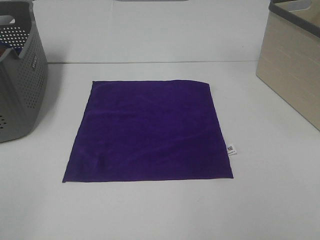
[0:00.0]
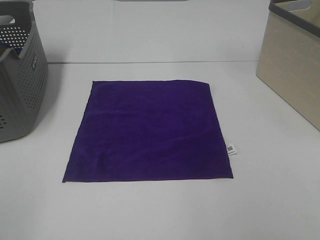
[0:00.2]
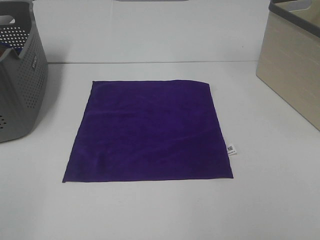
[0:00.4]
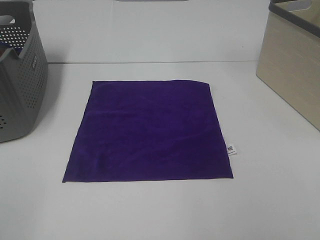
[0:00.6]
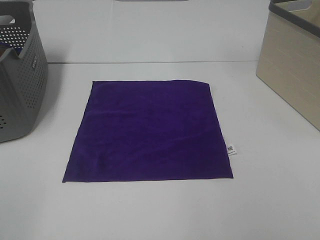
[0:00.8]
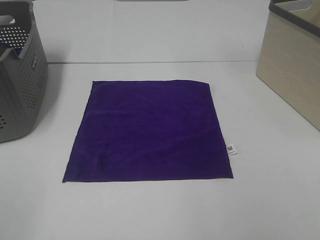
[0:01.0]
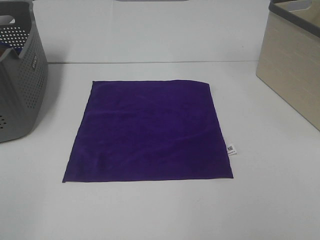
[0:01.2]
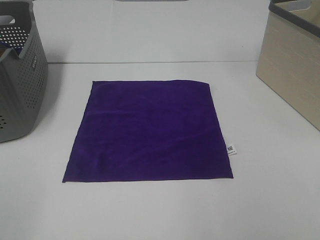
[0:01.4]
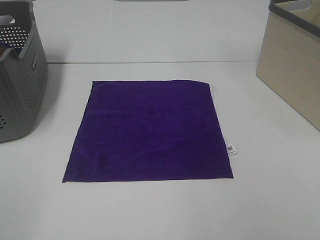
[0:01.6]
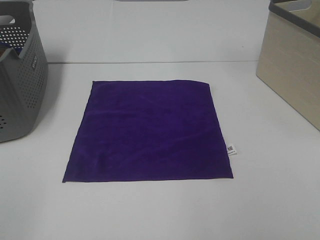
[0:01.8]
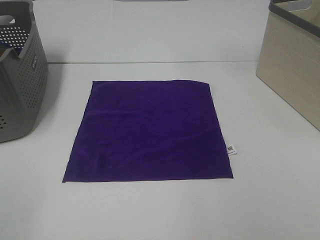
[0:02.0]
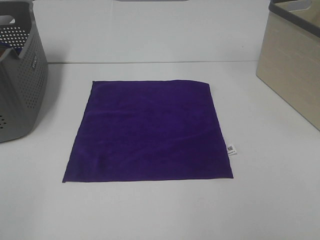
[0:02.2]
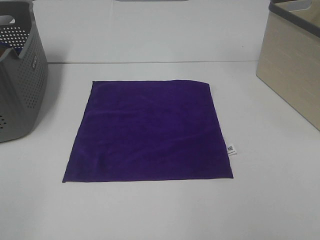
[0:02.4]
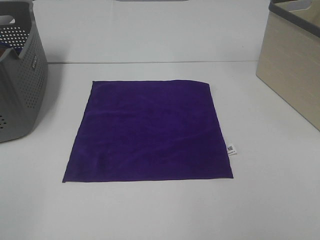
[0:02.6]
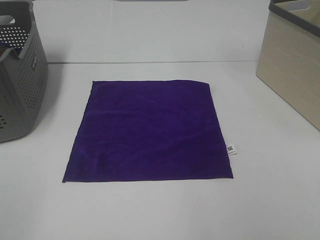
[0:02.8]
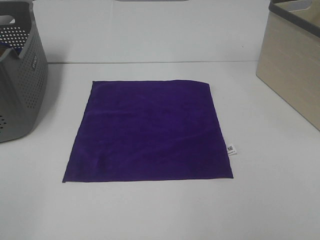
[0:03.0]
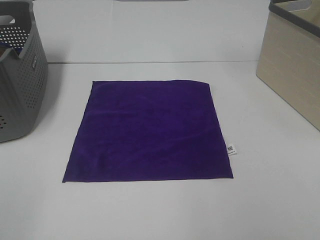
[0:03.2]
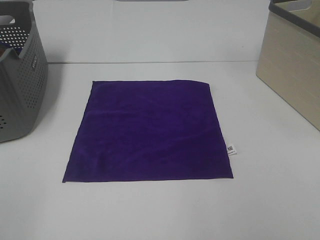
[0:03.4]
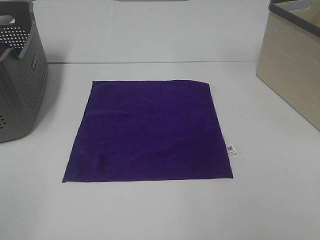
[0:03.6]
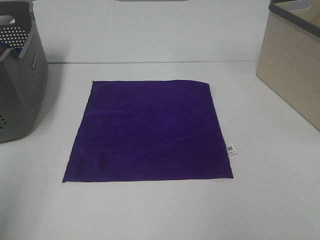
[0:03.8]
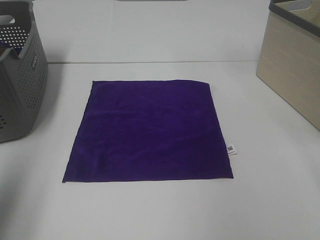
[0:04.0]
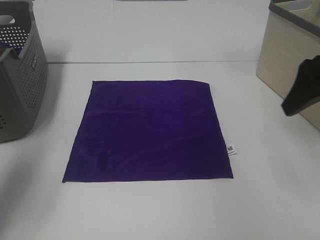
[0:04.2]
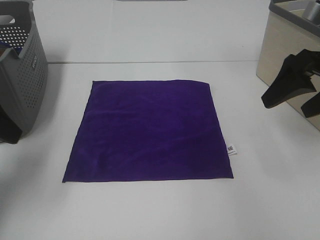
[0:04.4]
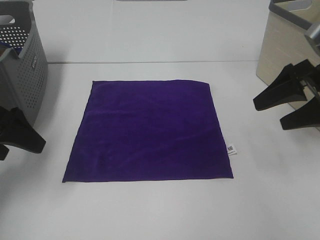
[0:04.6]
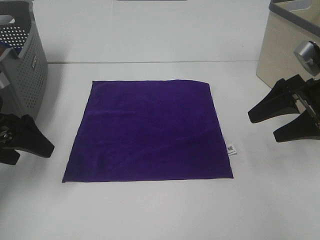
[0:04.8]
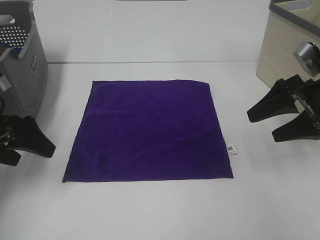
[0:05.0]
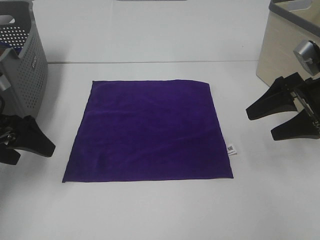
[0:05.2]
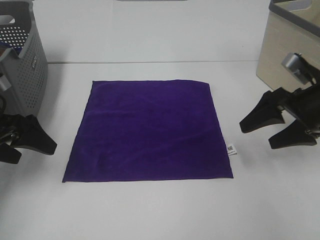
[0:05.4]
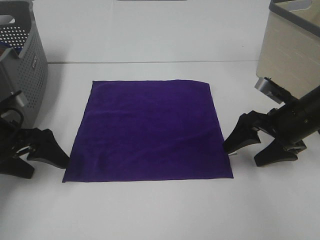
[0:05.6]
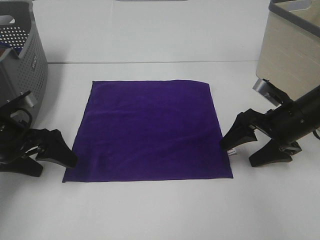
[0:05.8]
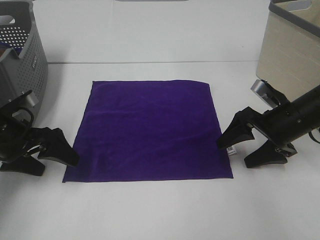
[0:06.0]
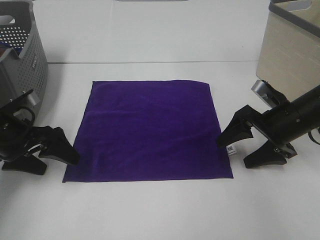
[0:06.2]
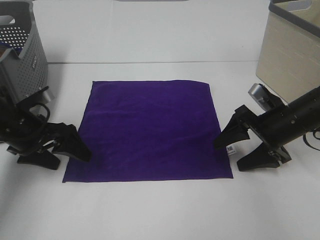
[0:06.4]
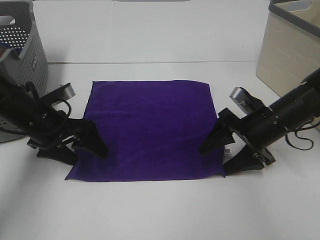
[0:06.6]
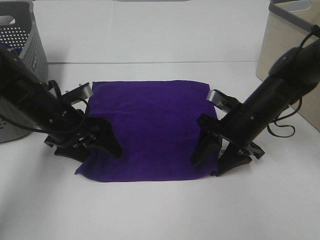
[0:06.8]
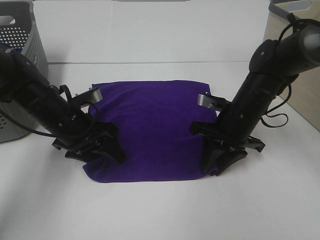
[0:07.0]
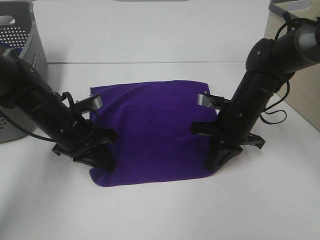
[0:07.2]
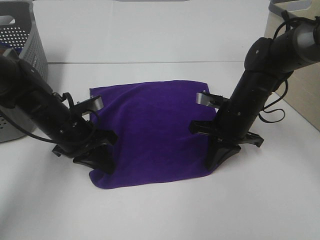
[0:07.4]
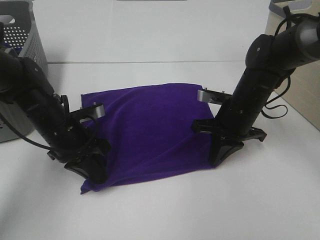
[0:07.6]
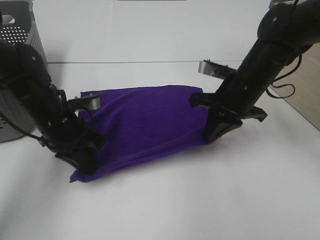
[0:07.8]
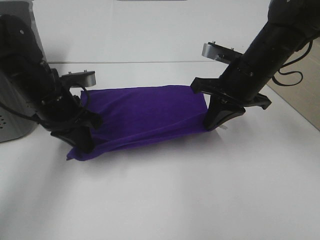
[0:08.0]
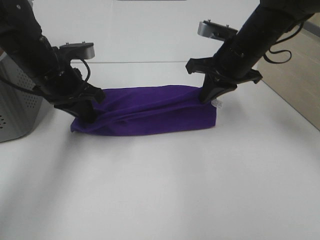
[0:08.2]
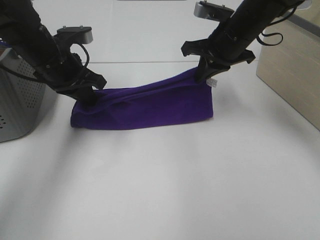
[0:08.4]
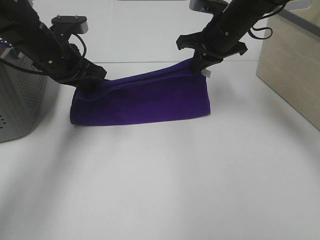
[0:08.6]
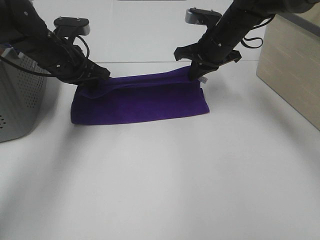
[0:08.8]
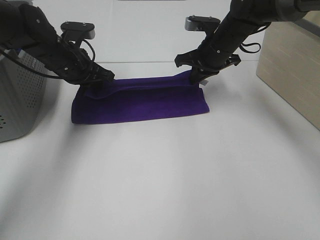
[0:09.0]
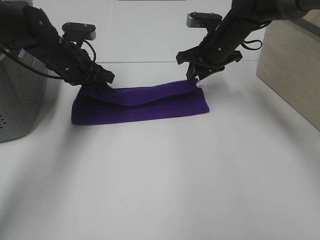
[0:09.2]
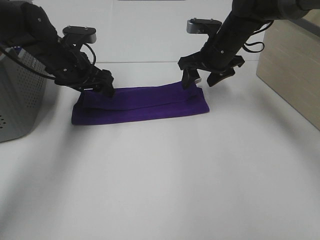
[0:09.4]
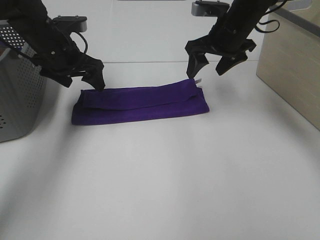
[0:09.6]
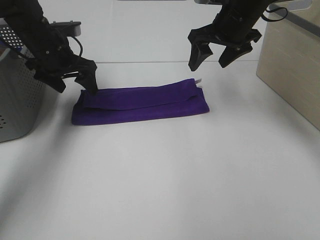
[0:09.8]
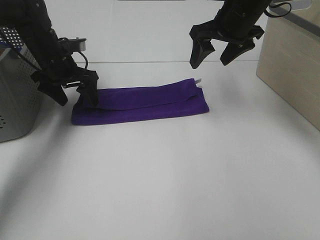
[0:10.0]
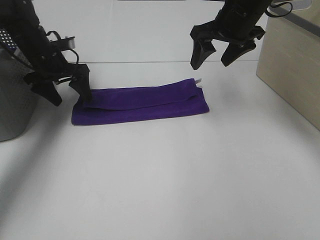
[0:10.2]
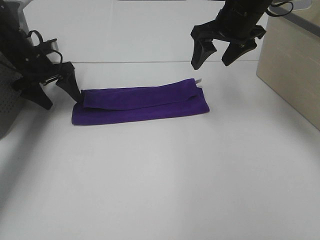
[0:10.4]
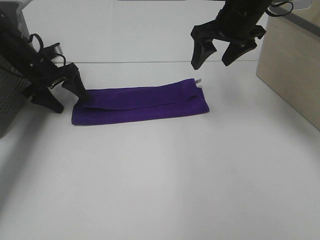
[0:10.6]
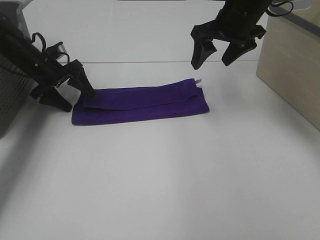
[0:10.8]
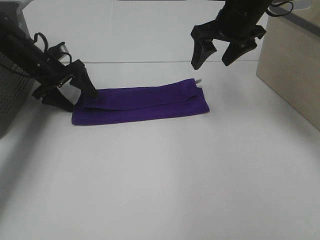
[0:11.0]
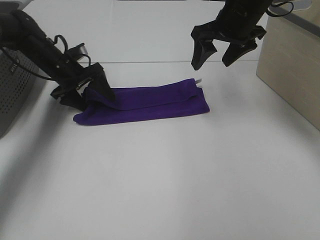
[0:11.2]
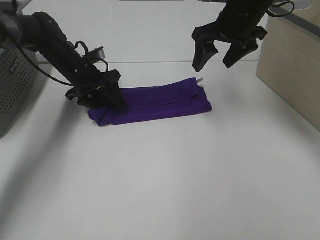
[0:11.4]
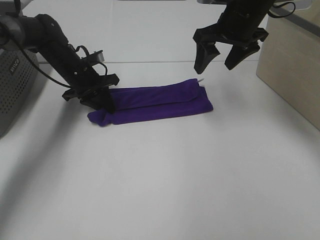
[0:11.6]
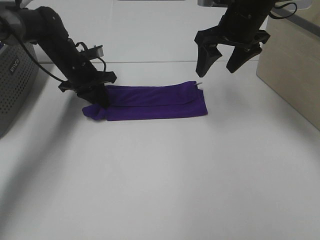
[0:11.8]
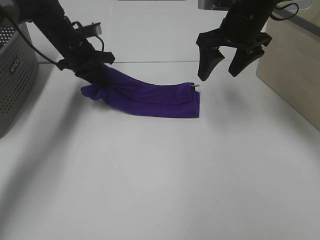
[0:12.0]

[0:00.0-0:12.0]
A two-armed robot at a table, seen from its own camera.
Task of the whole recording: Fold towels.
Step, 0:00.0 to 0:07.2: Left hand: grab the bottom left corner of purple towel.
Step, 0:00.0 to 0:07.2: Right hand: grab the bottom right corner of purple towel.
Step, 0:07.4 to 0:09.0: Left hand: fold the purple towel up.
Step, 0:07.4 to 0:09.0: Right hand: fold the purple towel up.
0:00.0 to 0:03.0: The two grippers keep their place.
0:03.0 to 0:04.4: The two grippers go about 25 cm forward.
0:04.4 to 0:06.0: Both grippers move downward, about 15 cm.
0:06.0 to 0:07.6: The left gripper goes approximately 10 cm to the right, and closes its fingers. The right gripper heads to the left, covering roughly 10 cm, and closes up.
0:07.6 to 0:09.0: Both grippers move forward and upward, about 15 cm.
0:09.0 to 0:10.4: The right gripper moves upward, roughly 10 cm, and opens its fingers. Meanwhile the left gripper travels to the left by roughly 10 cm, and opens.
0:10.4 to 0:12.0: The left gripper travels to the right by roughly 10 cm, and closes.

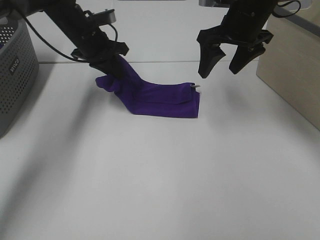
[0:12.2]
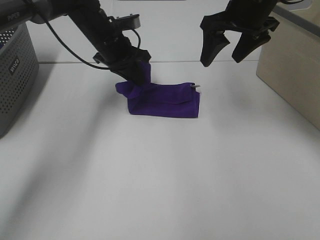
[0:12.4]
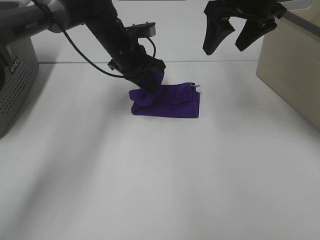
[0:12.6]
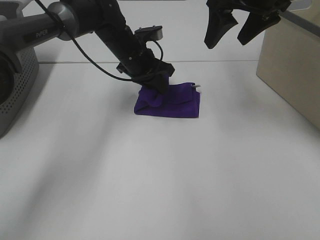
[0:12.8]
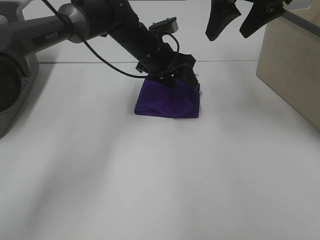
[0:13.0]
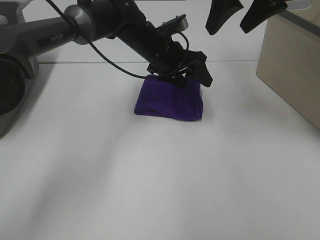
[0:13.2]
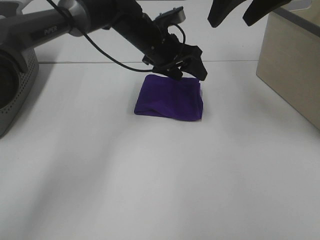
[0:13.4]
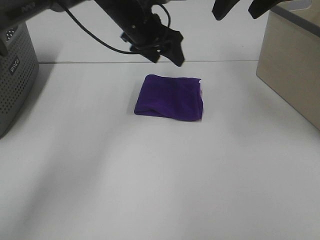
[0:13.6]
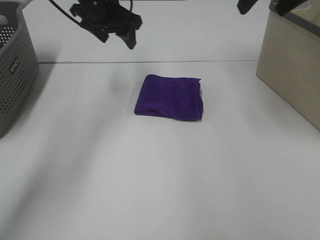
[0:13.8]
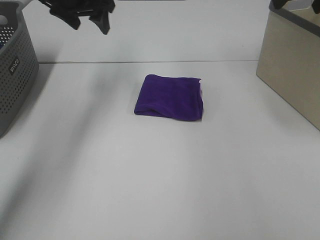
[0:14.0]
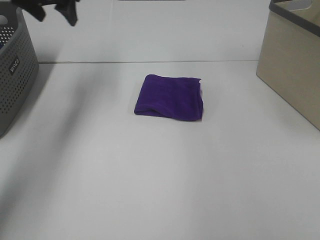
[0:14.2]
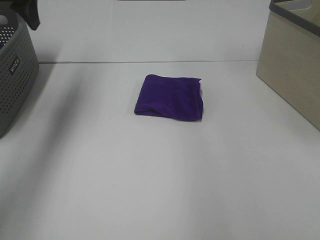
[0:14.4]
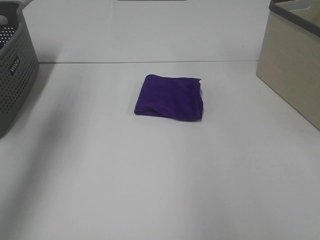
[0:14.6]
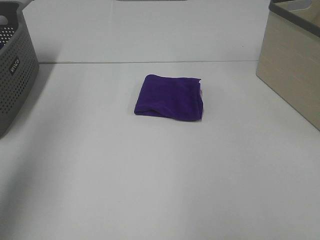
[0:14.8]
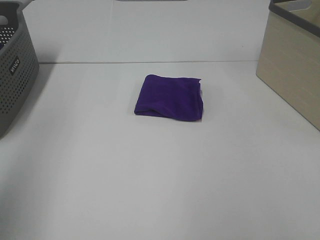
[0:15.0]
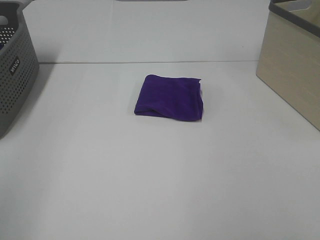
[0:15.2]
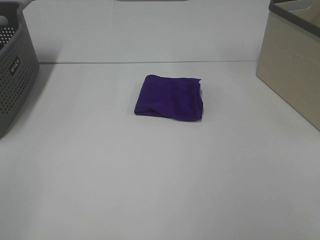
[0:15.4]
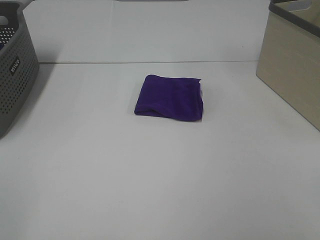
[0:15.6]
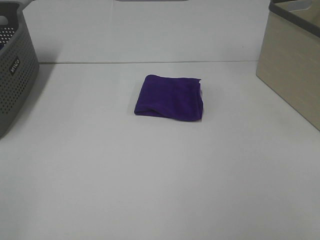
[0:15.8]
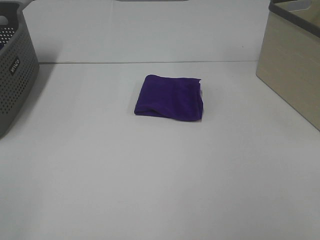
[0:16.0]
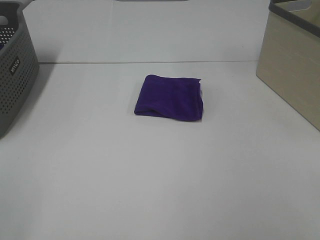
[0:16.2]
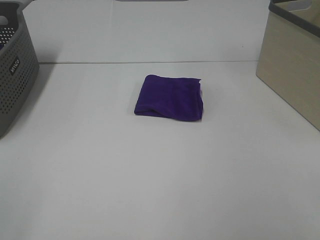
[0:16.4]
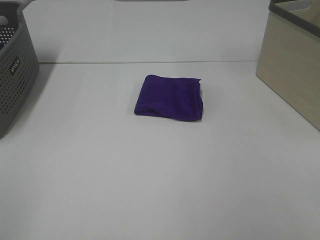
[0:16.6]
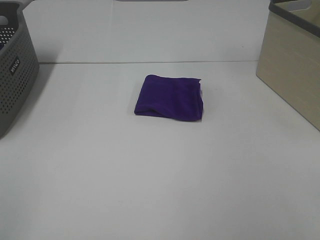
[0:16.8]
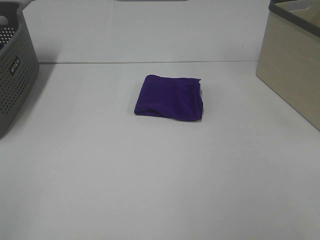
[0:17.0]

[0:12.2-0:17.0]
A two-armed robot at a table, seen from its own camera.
Task of the whole recording: Fold towels.
0:12.2 to 0:13.8: The left gripper heads upward, covering approximately 10 cm, reaches roughly 15 cm to the right, then returns, and opens, while the right gripper heads upward and to the right, covering approximately 15 cm.
0:13.8 to 0:15.4: Both grippers move backward, some 40 cm.

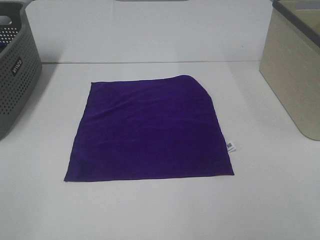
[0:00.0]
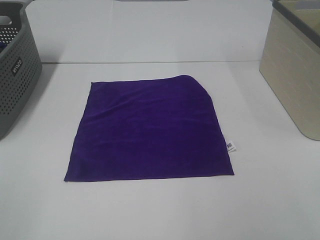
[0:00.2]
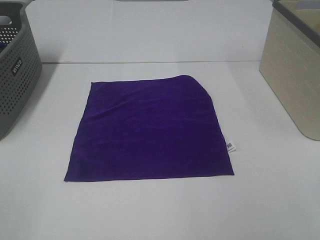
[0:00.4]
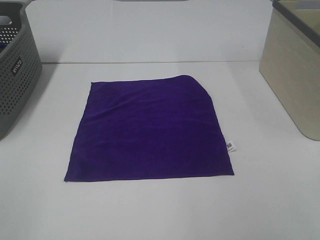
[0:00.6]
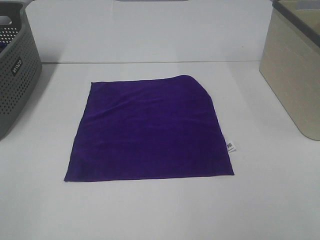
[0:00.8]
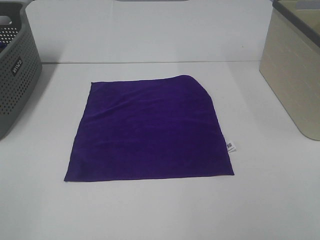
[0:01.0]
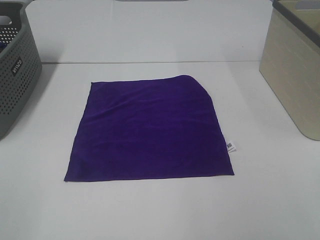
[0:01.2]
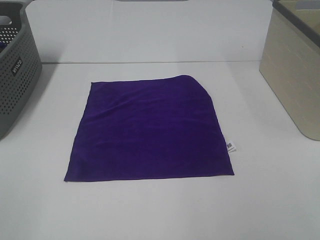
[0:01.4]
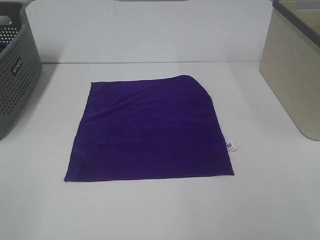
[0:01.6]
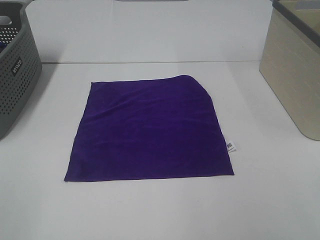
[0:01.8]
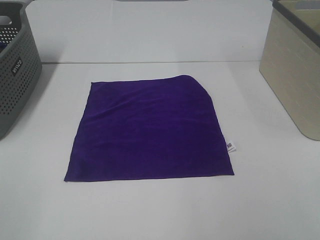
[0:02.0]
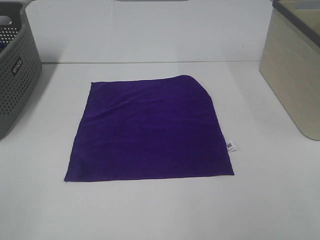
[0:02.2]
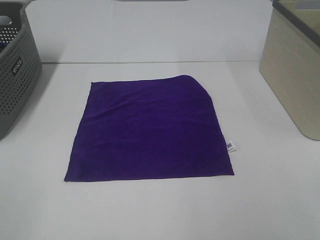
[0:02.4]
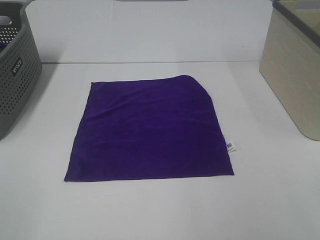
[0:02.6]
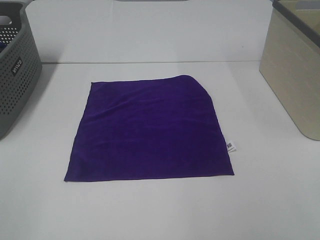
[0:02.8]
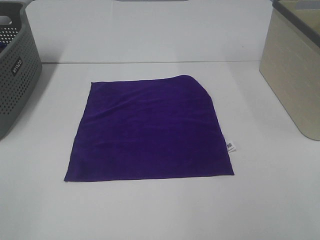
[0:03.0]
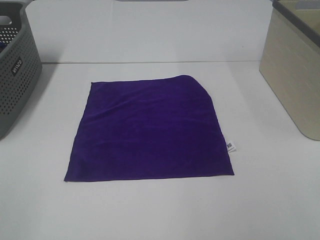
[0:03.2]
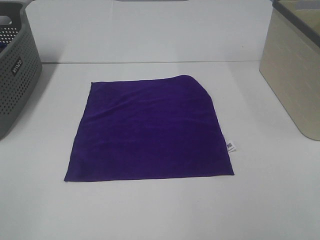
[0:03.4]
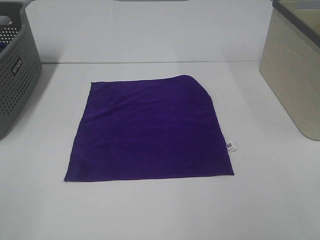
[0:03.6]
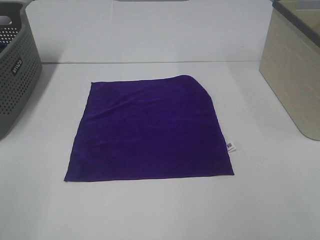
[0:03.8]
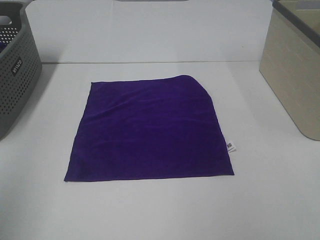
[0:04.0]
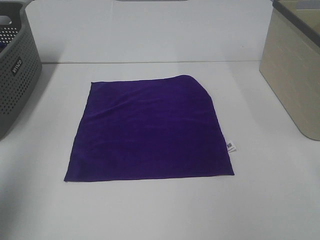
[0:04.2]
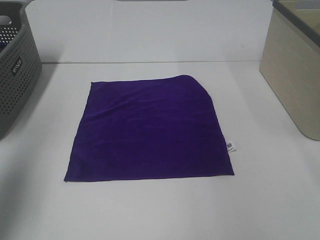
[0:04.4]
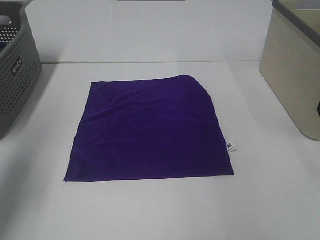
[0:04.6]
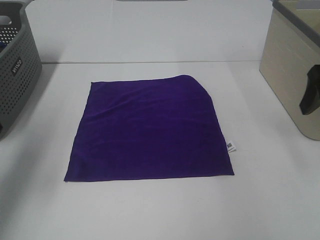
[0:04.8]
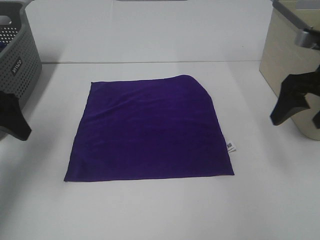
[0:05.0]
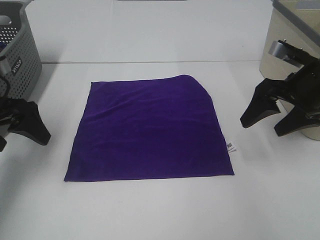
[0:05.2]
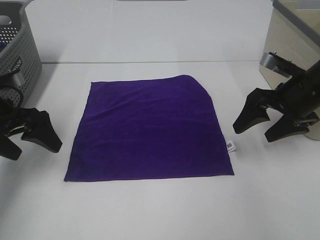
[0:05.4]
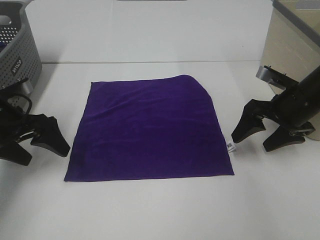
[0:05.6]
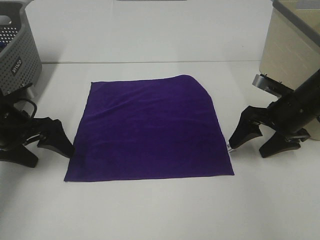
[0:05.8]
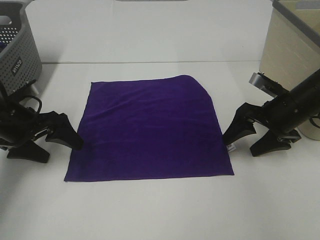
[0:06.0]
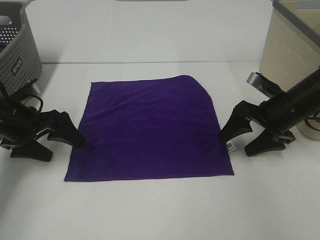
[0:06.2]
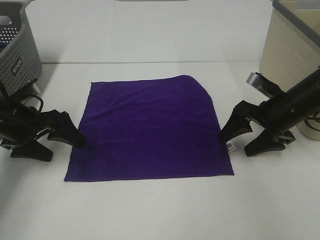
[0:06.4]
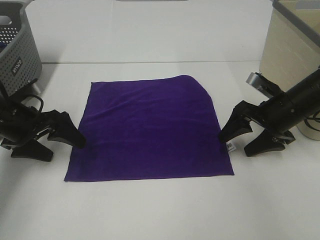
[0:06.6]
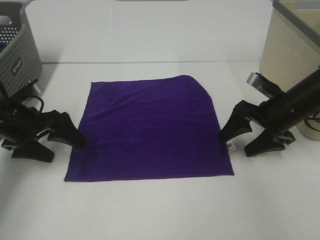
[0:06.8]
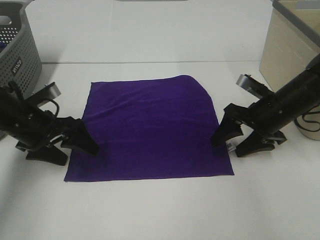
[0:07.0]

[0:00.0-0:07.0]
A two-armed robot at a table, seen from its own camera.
Task of the whole recording: Fold towels.
0:00.0 to 0:02.8: Both grippers stay put.
0:02.8 to 0:04.2: The left gripper shifts approximately 15 cm forward.
0:04.2 to 0:05.6: The grippers both shift downward and forward by about 25 cm.
0:05.6 to 0:07.0: The left gripper ends up approximately 5 cm from where it was.
